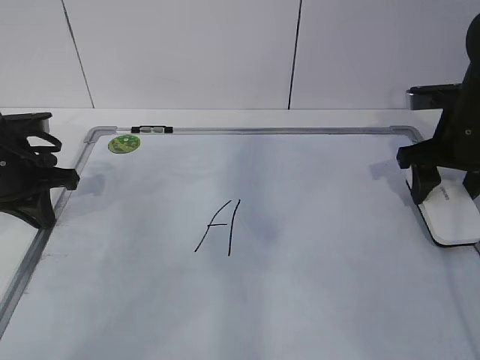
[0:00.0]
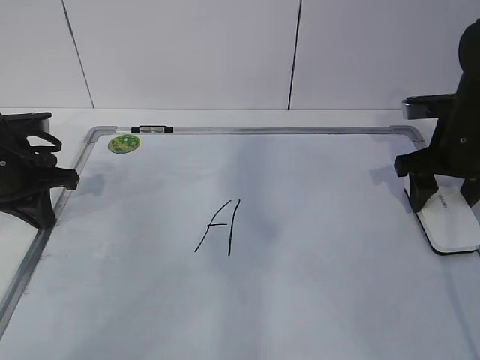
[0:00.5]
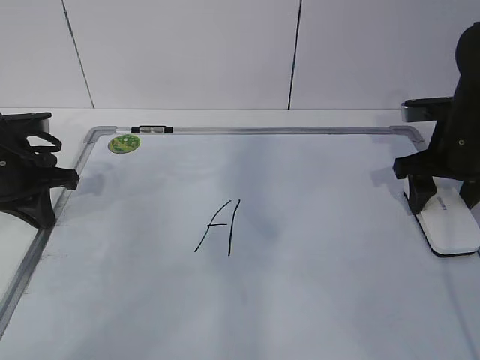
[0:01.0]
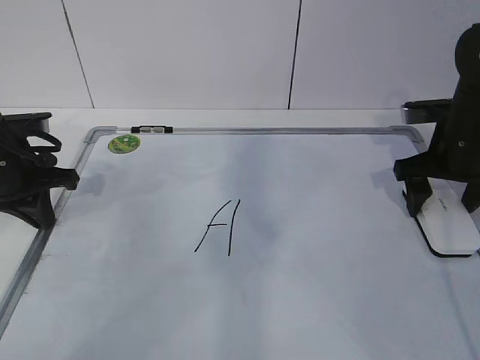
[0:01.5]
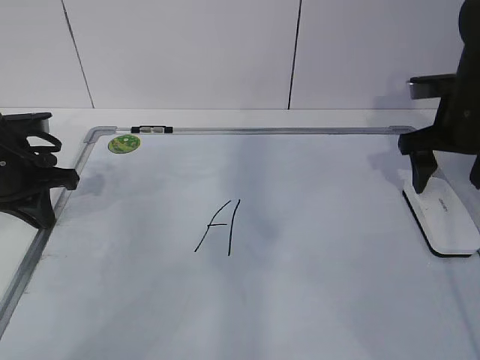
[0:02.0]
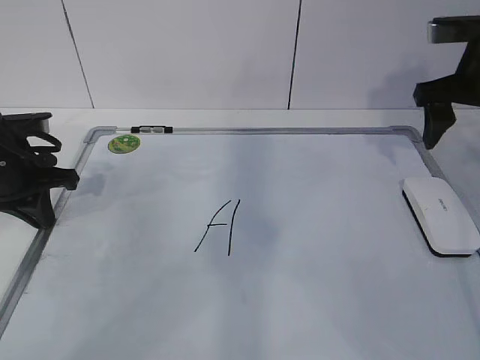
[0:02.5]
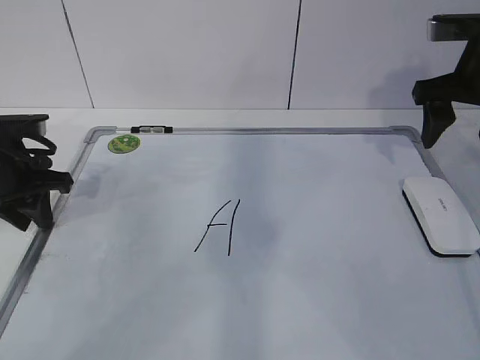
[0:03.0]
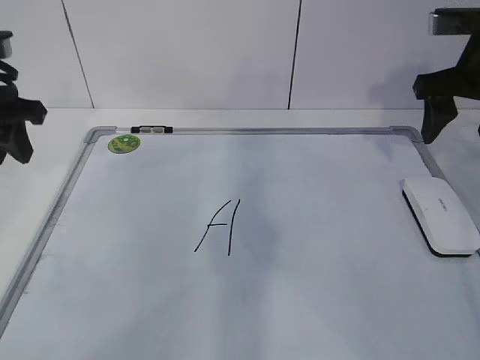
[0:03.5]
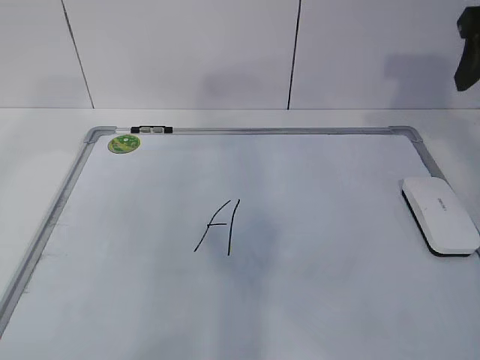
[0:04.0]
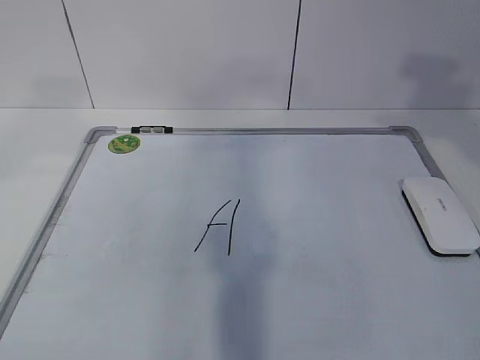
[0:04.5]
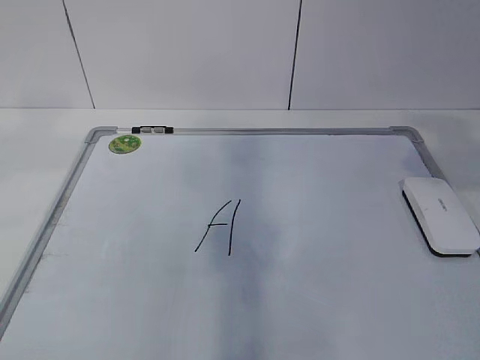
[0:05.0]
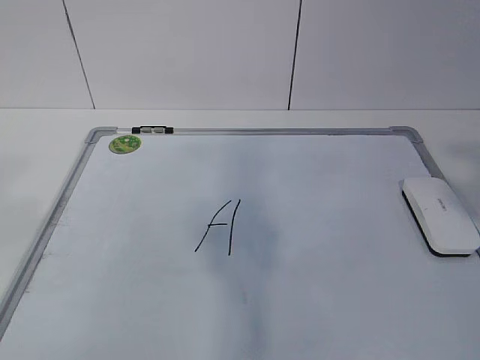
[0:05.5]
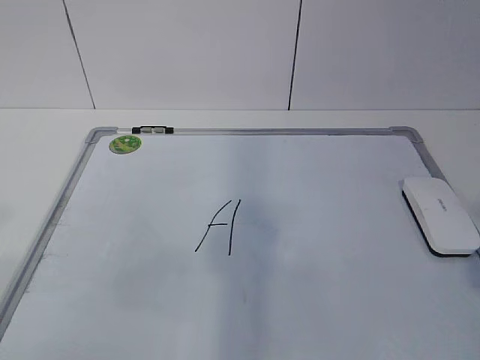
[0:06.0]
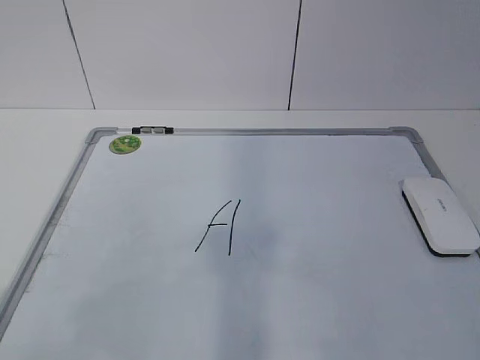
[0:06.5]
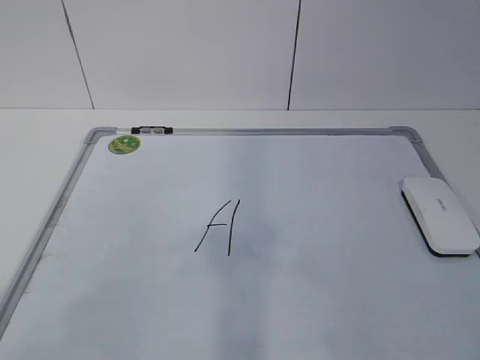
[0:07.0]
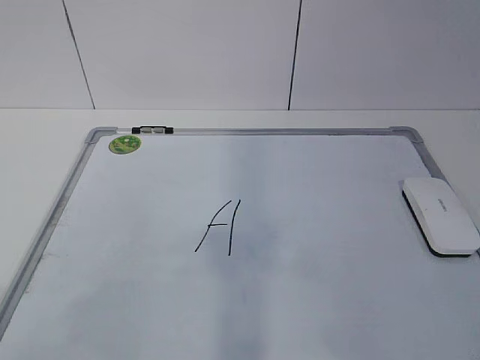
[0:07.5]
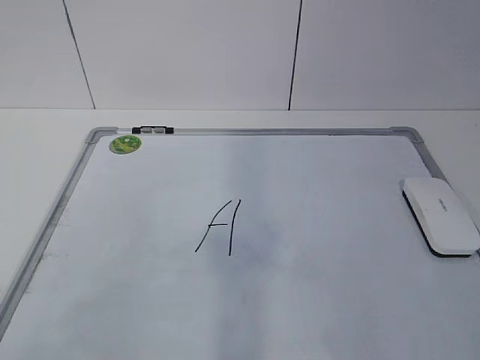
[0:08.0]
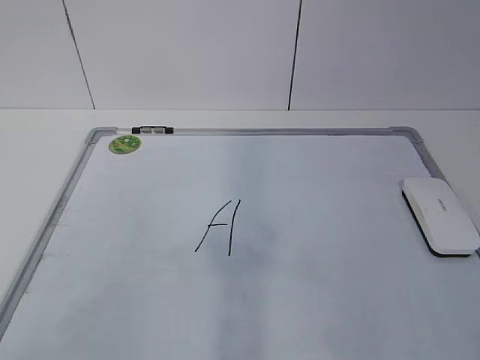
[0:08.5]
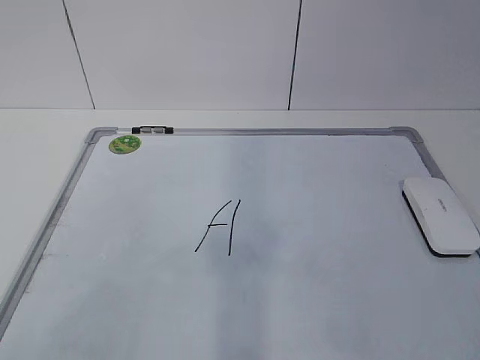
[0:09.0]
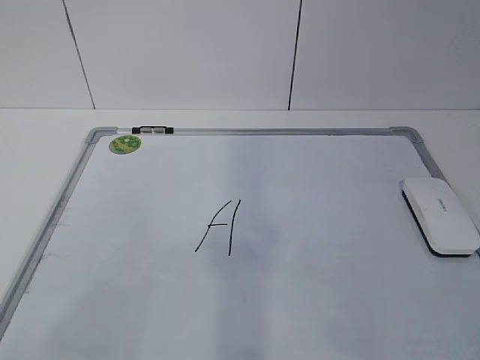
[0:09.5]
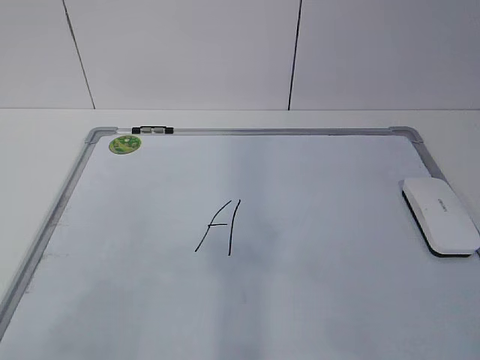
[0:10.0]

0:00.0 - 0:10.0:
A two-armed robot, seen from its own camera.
Task of the whole recording: pick up the eraser on the blackboard and erase the letter "a".
0:00.0 - 0:02.0: The right gripper opens its fingers.
0:02.0 - 0:04.0: The two grippers go about 15 cm upward. The left gripper opens its fingers; the right gripper closes up.
0:04.0 - 0:06.0: Both grippers travel together backward, about 30 cm. The left gripper opens its fingers.
